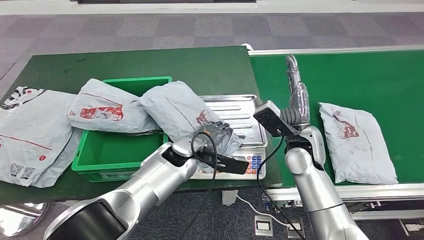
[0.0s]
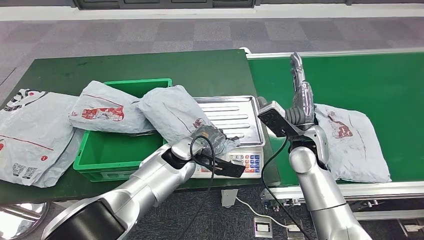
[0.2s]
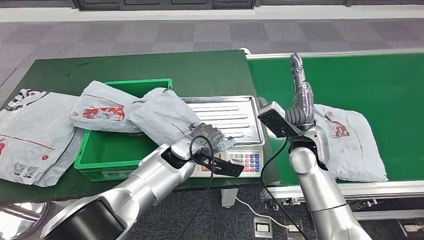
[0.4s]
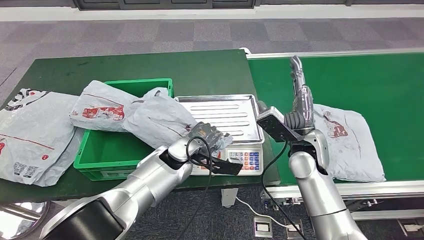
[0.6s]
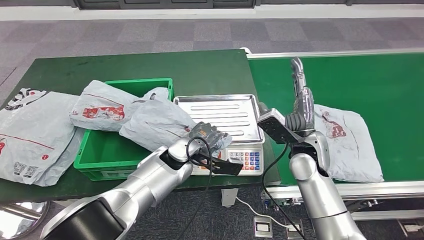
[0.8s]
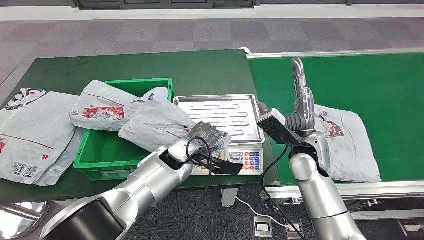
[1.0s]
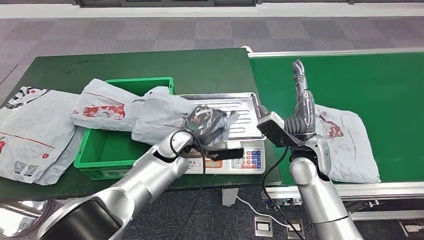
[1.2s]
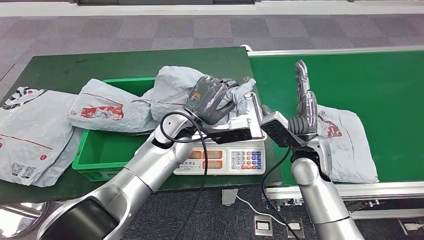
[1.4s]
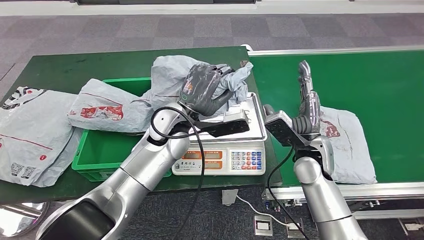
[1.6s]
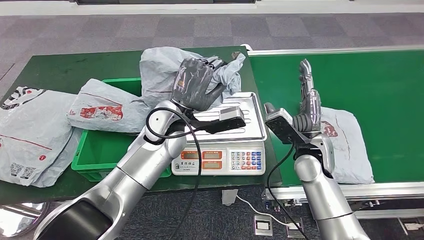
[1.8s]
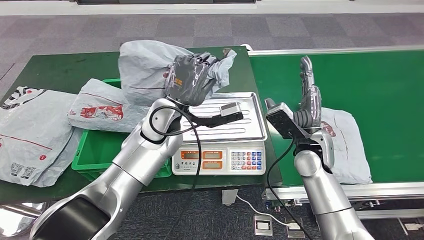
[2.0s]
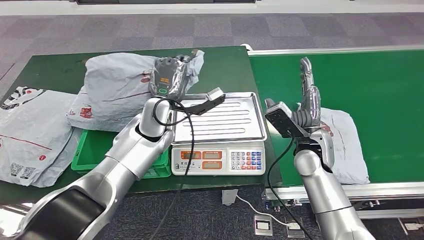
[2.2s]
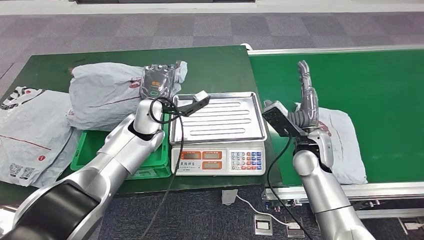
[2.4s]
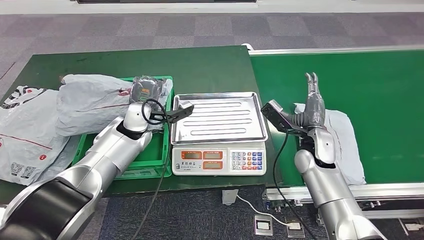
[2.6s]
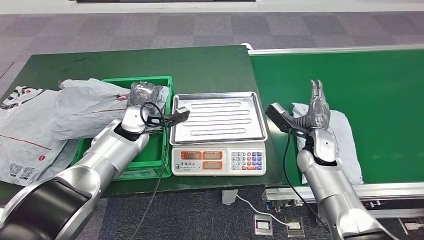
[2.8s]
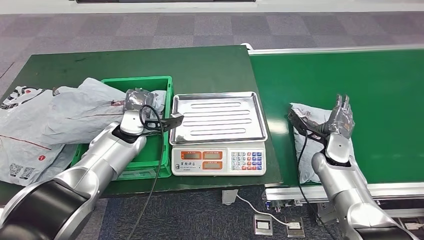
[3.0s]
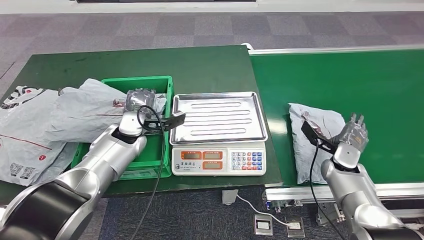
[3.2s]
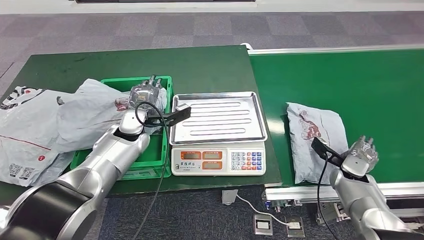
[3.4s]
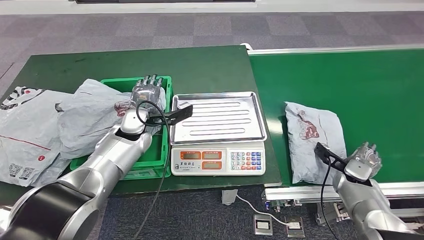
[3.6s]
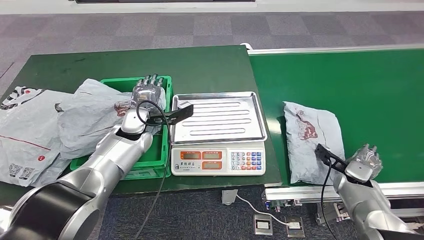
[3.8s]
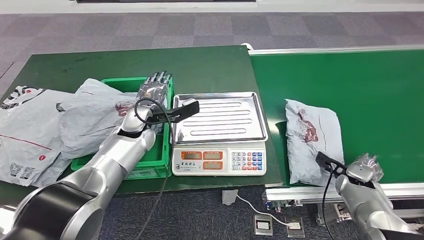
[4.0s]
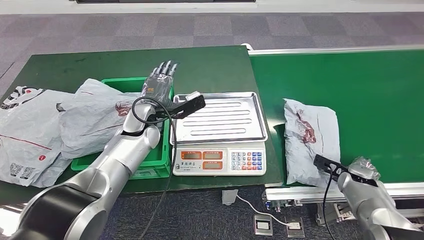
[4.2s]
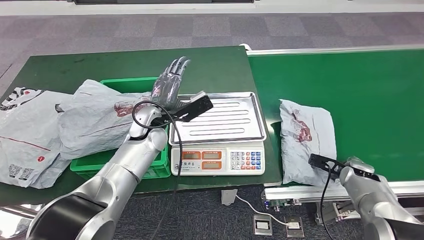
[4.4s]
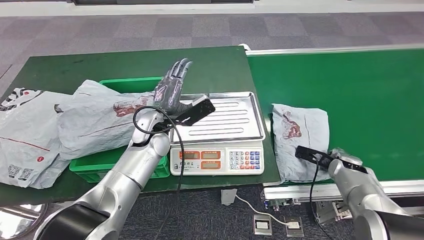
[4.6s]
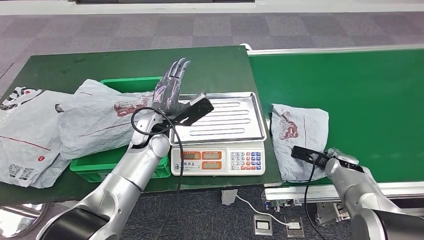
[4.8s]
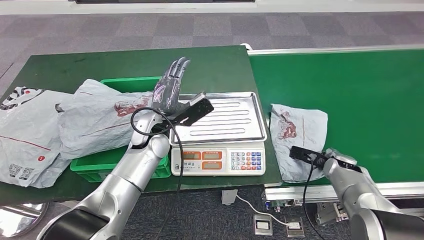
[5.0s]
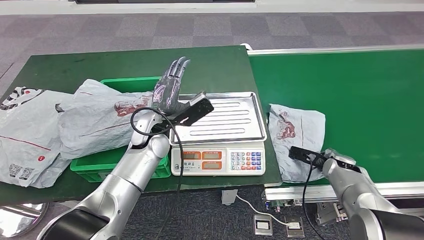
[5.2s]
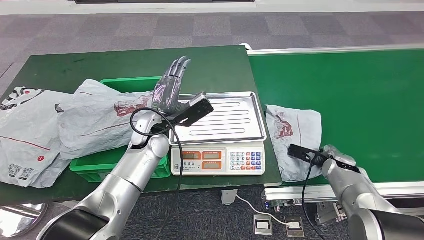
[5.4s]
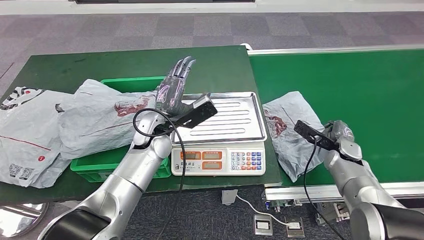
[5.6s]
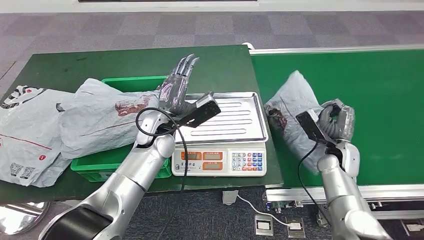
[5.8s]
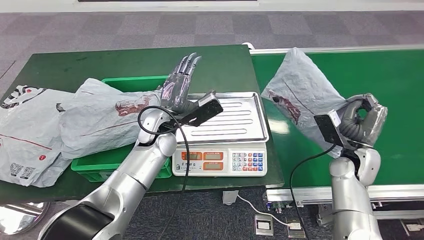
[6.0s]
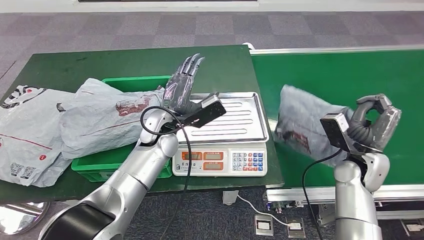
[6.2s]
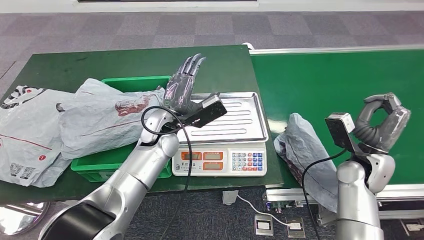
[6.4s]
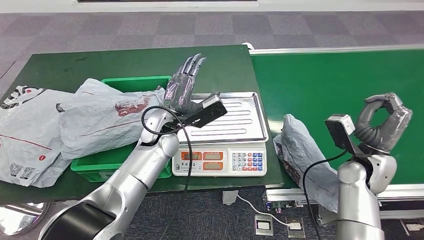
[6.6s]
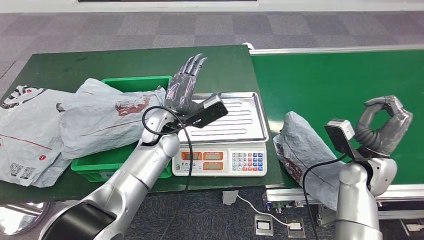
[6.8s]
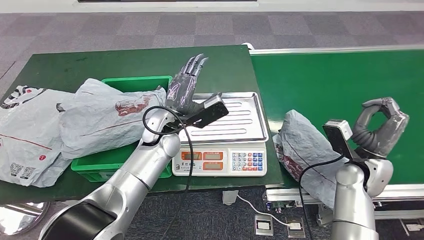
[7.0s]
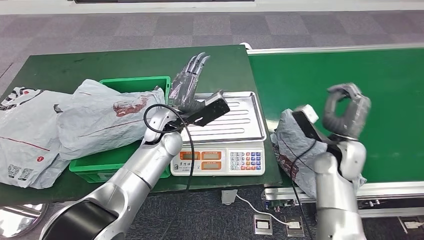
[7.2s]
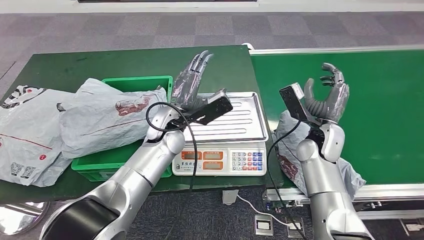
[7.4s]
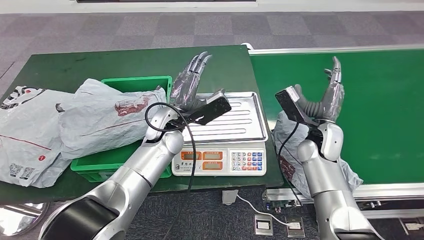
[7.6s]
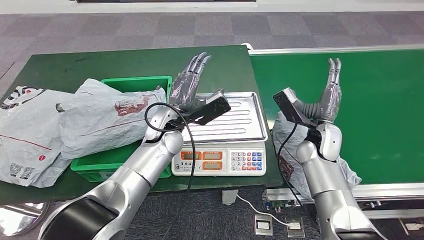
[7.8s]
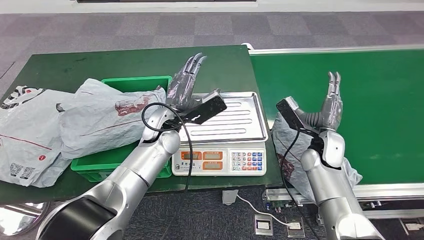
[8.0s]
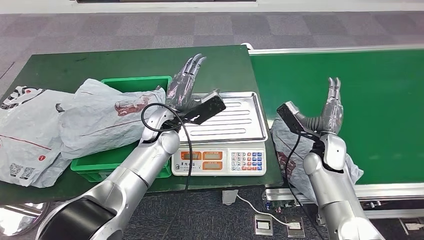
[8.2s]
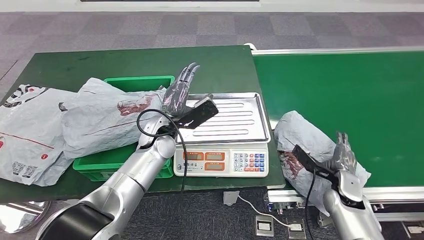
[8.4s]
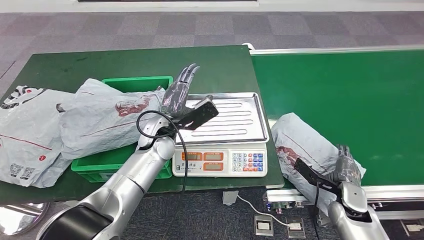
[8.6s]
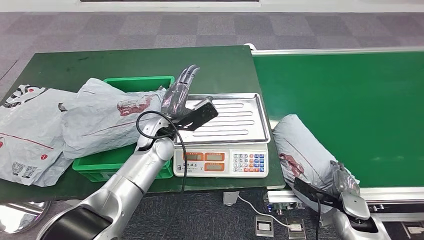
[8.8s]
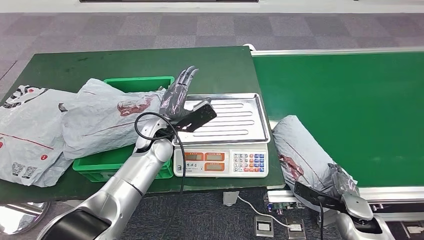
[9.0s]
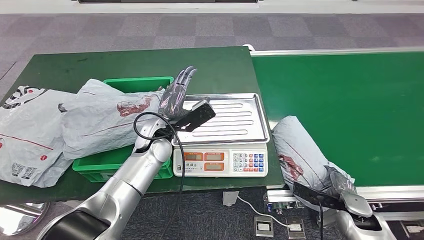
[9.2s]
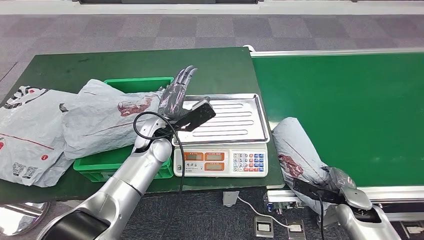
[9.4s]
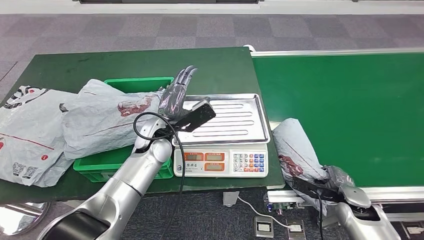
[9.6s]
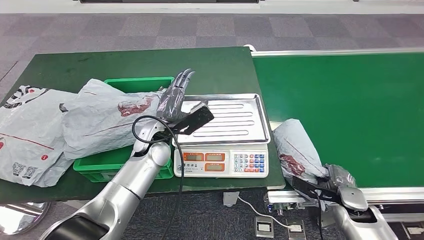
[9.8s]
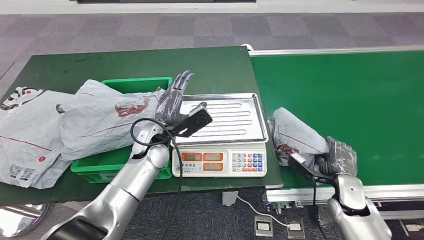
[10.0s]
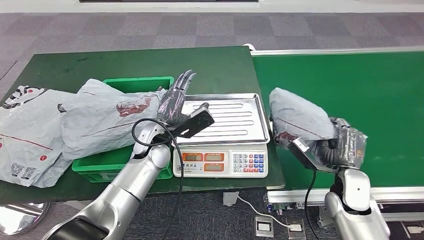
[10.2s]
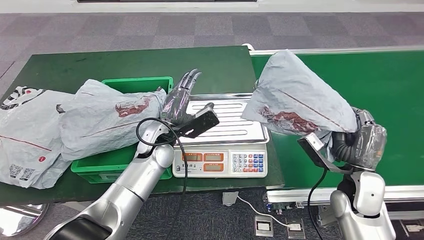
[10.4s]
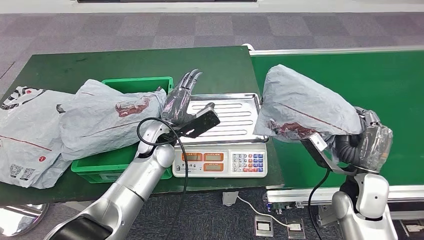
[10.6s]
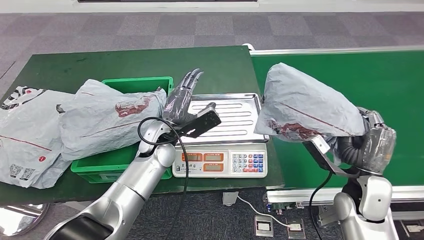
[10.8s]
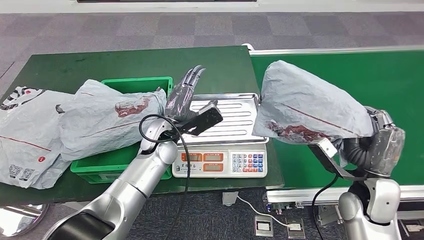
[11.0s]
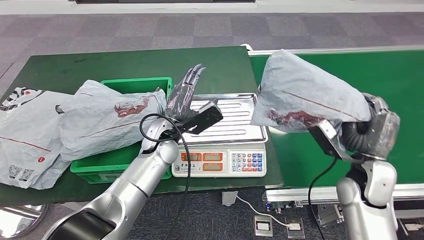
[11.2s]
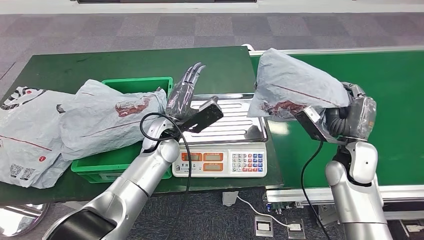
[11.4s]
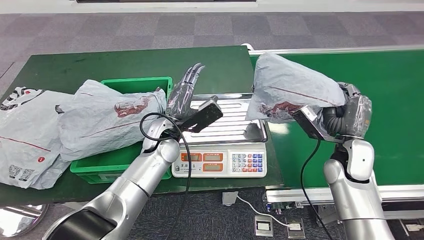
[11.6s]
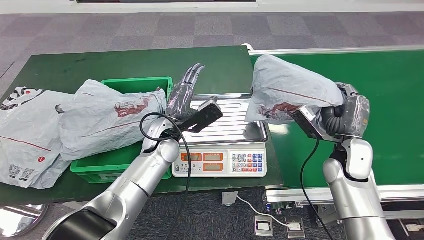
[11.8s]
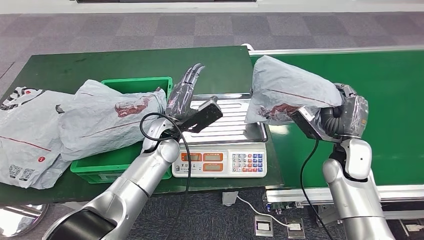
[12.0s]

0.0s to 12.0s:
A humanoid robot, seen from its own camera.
Step, 0.0s to 2.0s: Pick up the parcel from the inbound machine.
Step, 2.4s to 5.4s: Place the parcel into the delivery box.
Step, 8.0s to 10.2s: Pick up the parcel from the conveyor belt.
10.4s to 12.0s: The right hand heads forward, covering roughly 5 cm.

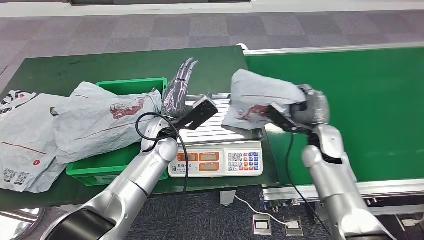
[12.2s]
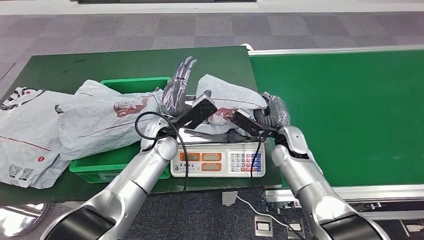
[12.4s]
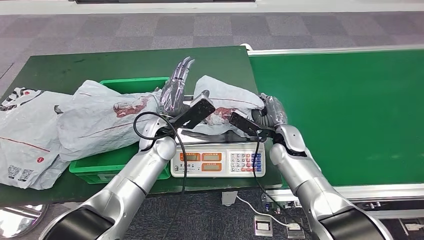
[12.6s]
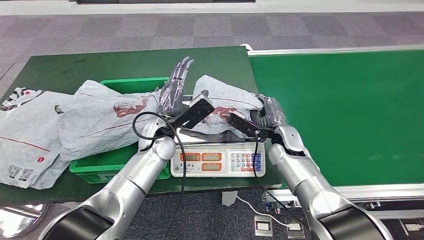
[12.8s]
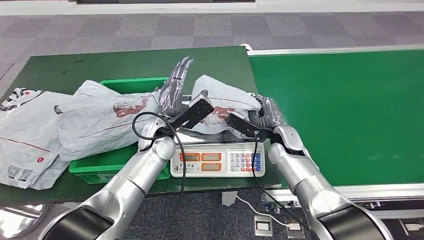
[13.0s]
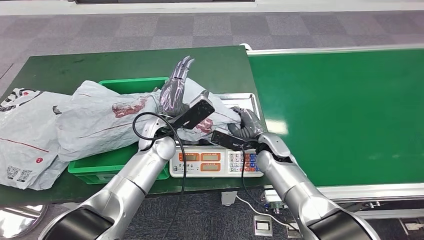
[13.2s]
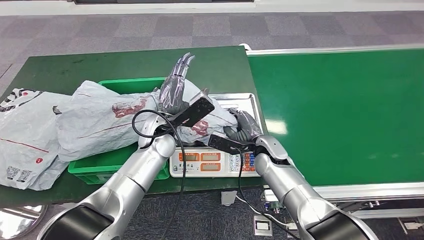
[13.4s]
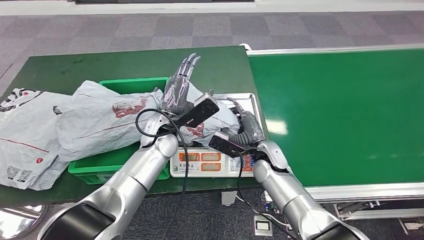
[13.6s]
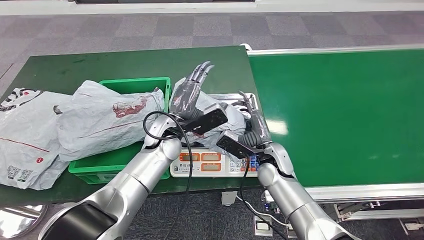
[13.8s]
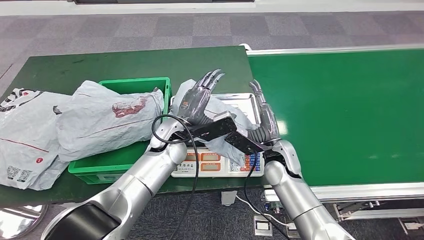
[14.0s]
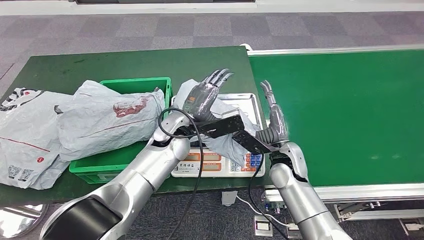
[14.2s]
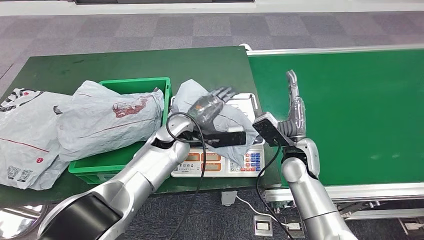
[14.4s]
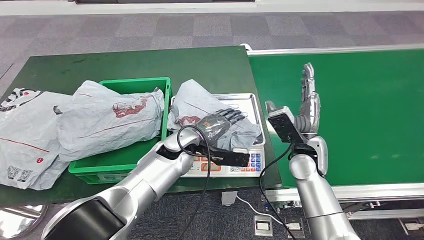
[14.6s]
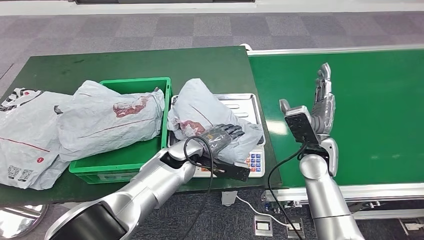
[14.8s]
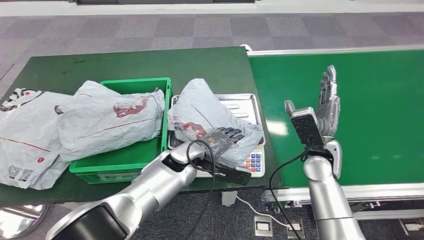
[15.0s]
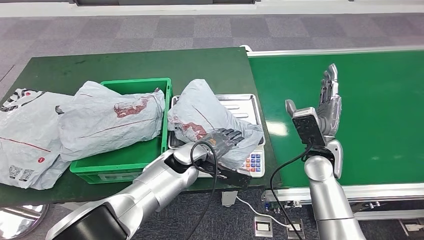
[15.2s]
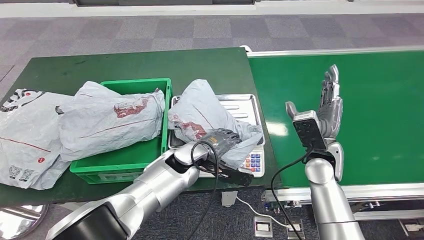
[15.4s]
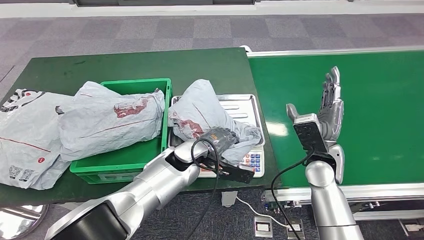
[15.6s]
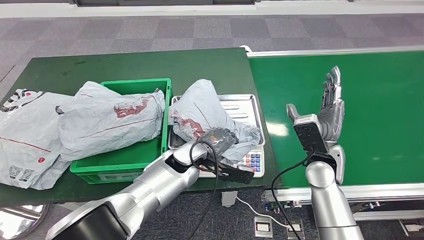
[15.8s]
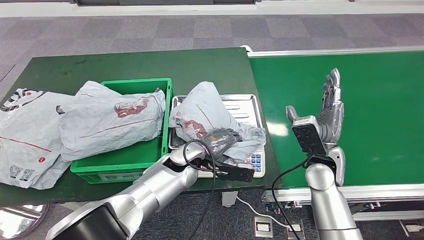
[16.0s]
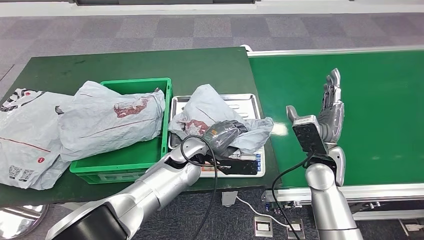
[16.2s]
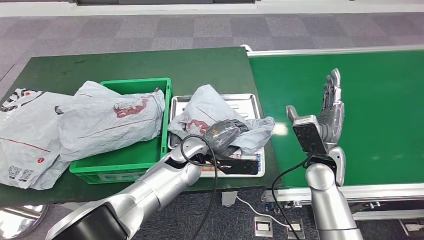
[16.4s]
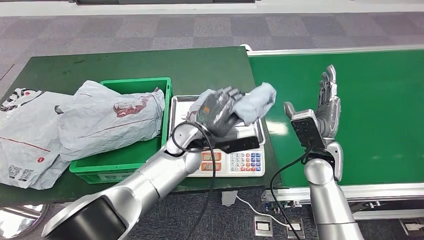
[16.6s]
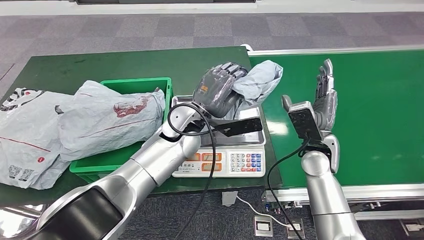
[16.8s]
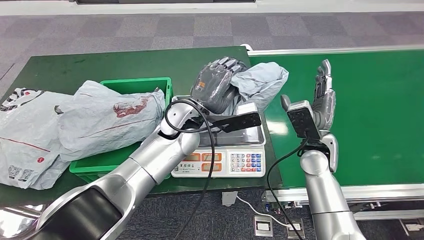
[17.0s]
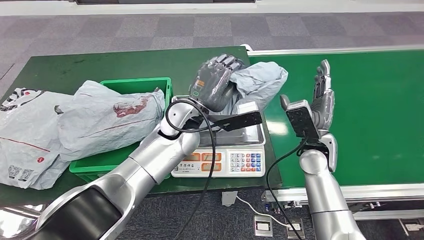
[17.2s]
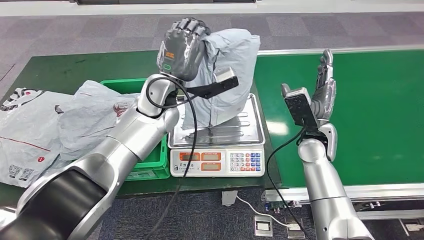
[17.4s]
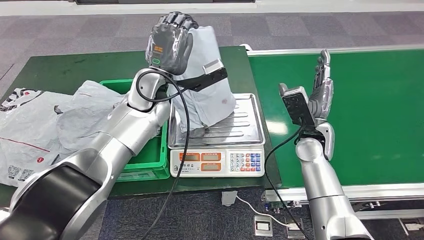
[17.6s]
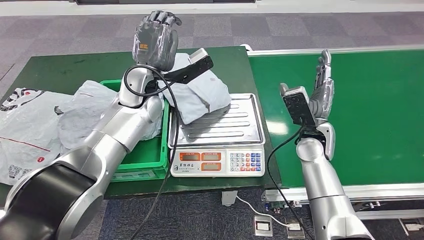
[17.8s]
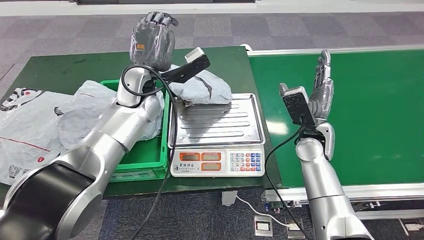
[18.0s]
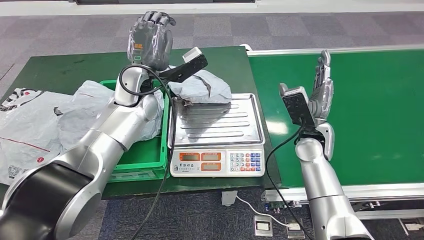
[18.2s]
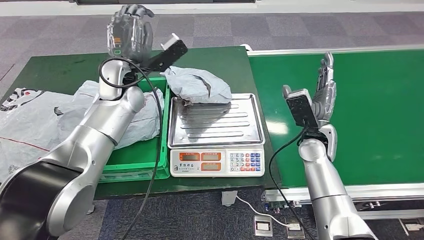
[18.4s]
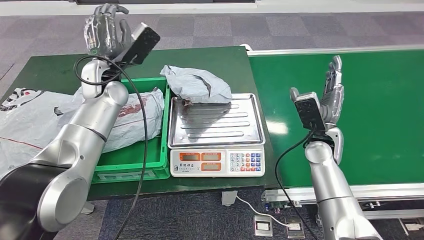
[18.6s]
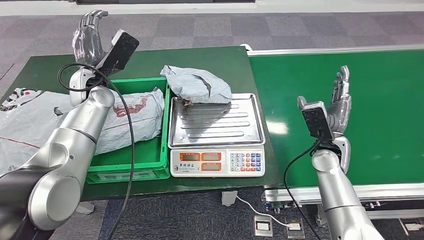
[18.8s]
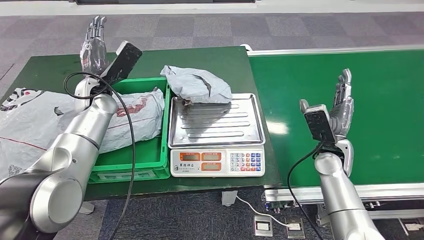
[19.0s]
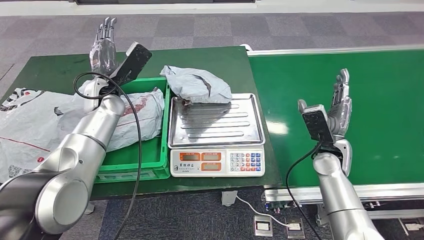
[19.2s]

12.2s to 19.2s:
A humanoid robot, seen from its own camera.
Step, 12.2s to 14.4s: Place the parcel onto the inbound machine.
Step, 14.6s to 16.8s: Pick up the parcel from the inbound machine.
